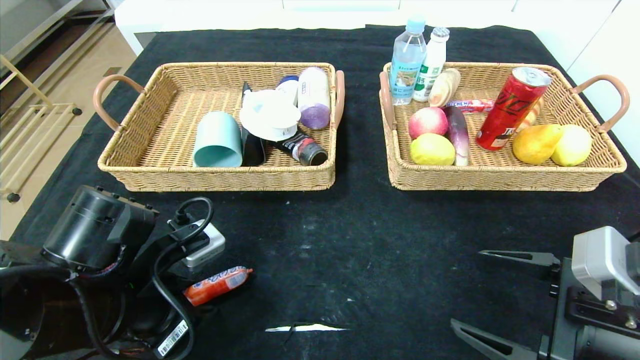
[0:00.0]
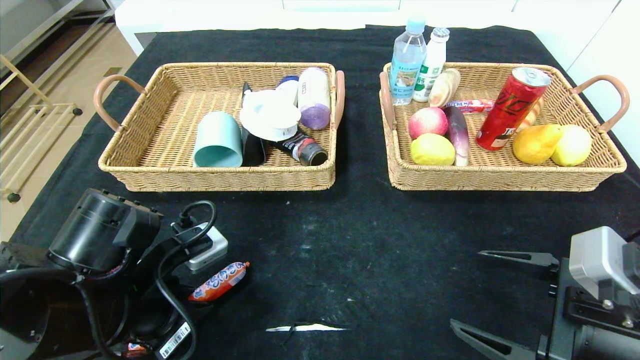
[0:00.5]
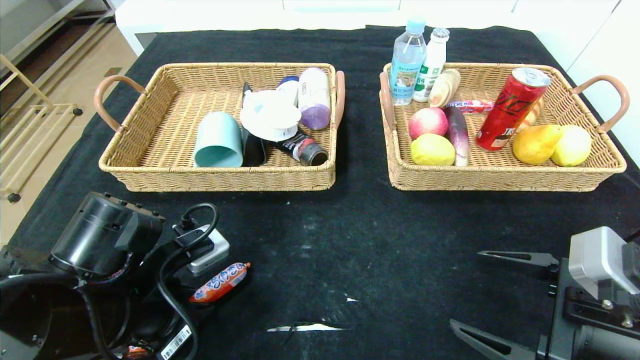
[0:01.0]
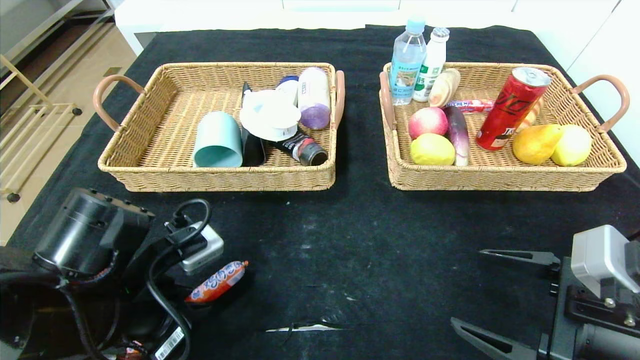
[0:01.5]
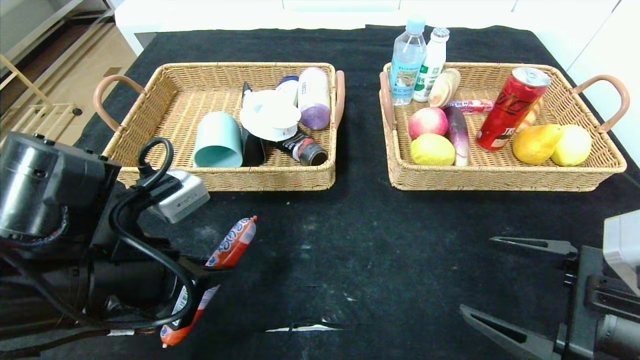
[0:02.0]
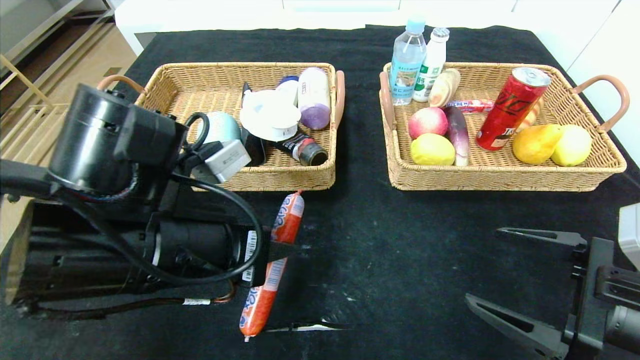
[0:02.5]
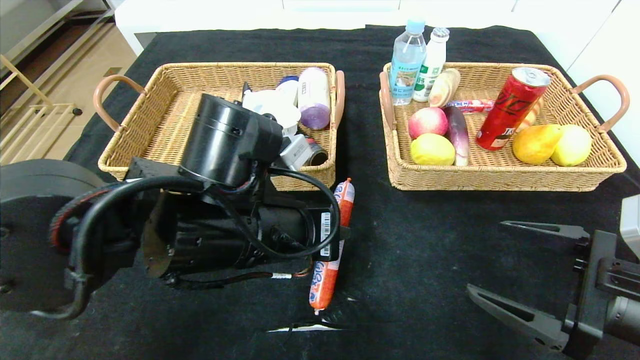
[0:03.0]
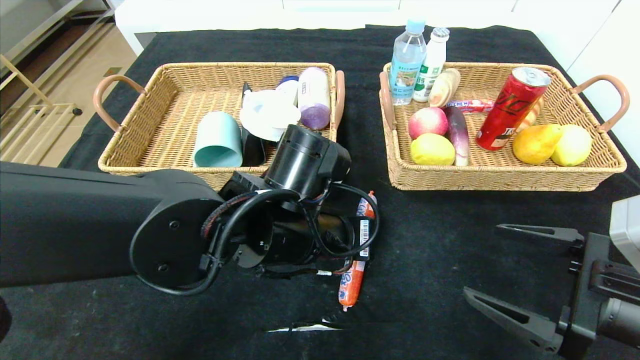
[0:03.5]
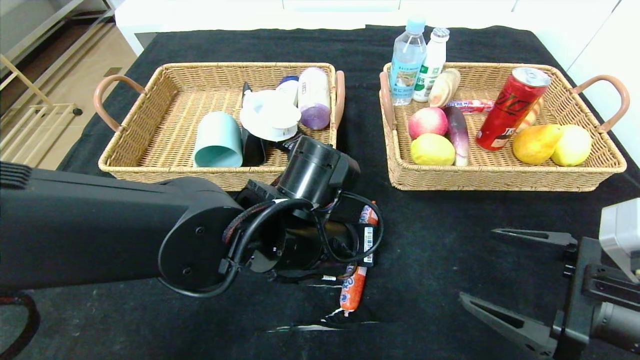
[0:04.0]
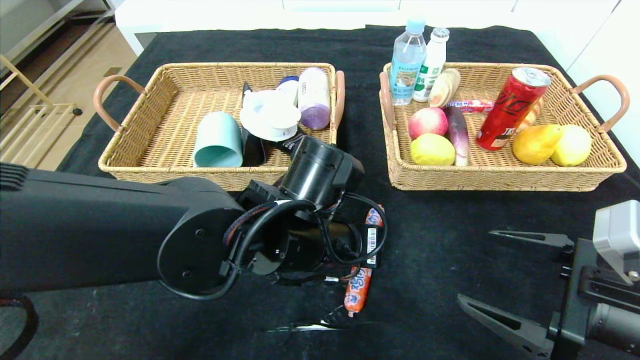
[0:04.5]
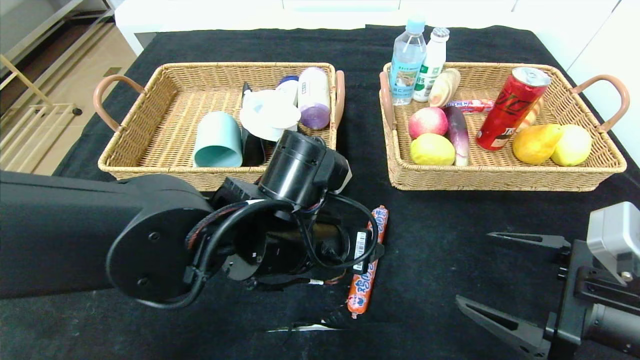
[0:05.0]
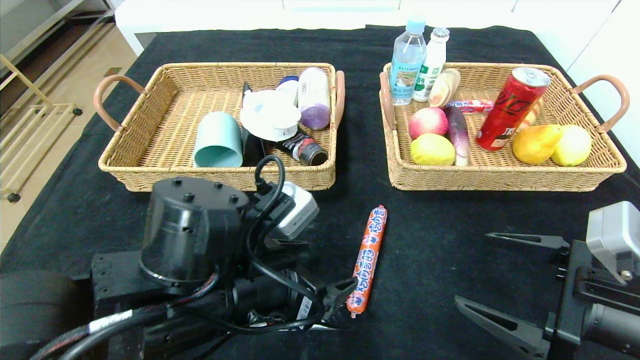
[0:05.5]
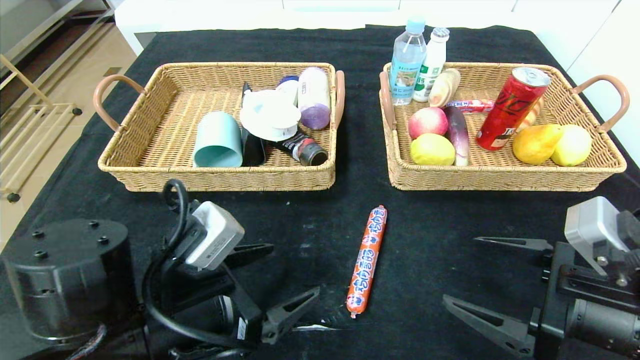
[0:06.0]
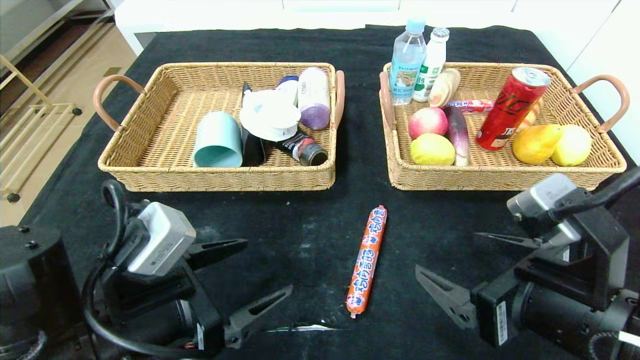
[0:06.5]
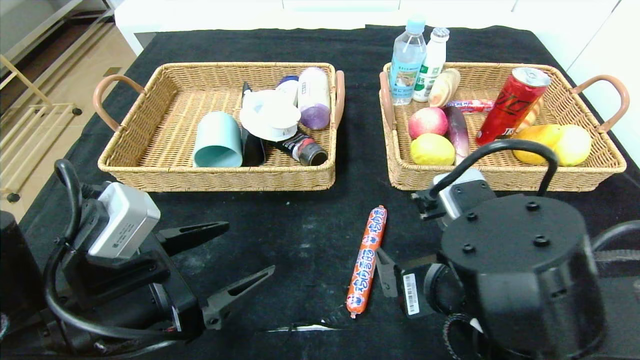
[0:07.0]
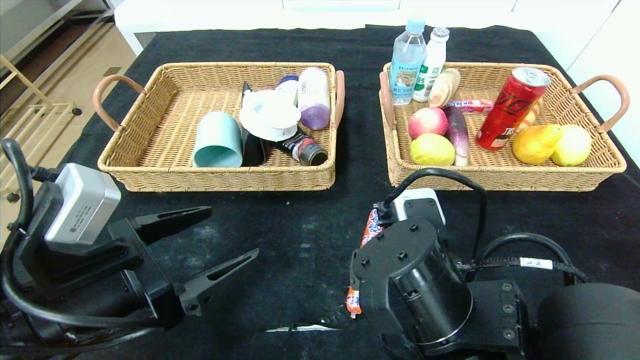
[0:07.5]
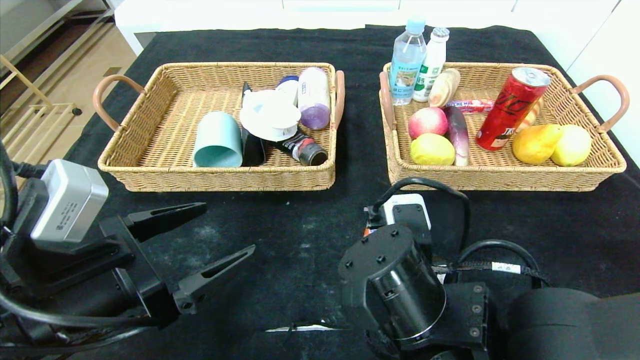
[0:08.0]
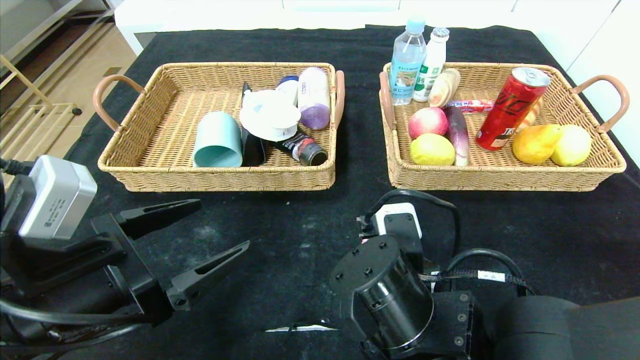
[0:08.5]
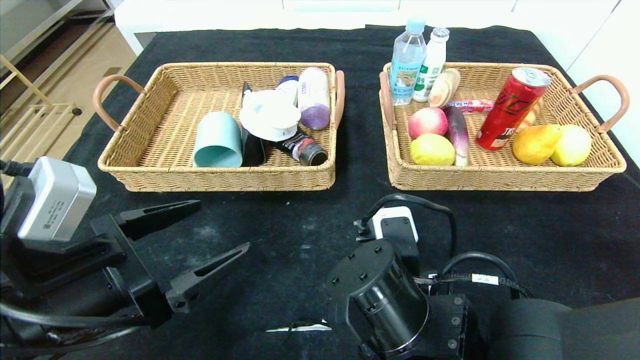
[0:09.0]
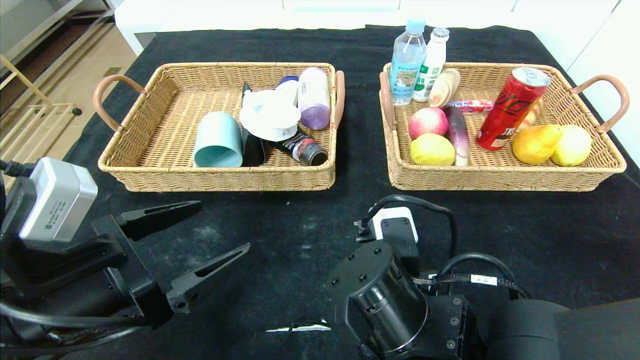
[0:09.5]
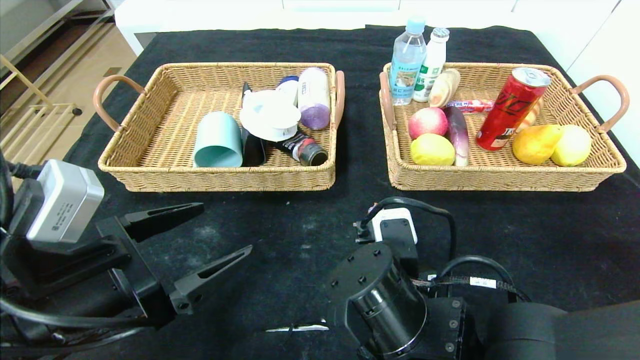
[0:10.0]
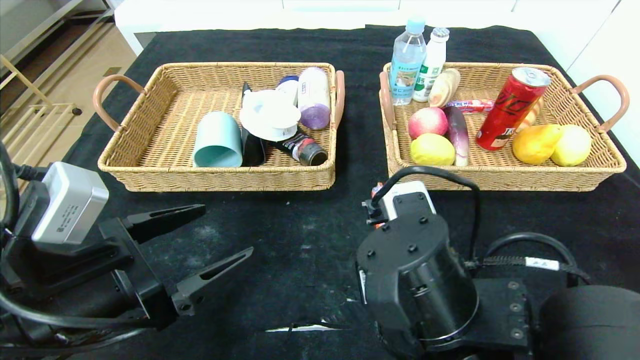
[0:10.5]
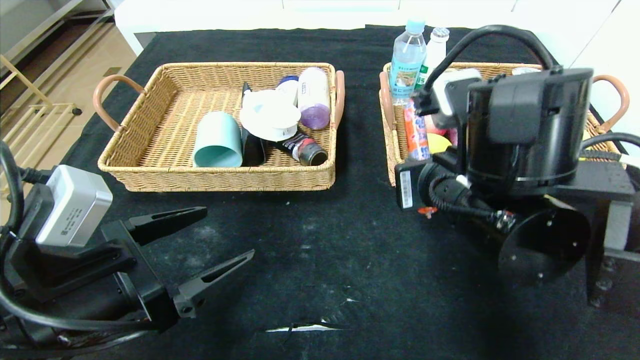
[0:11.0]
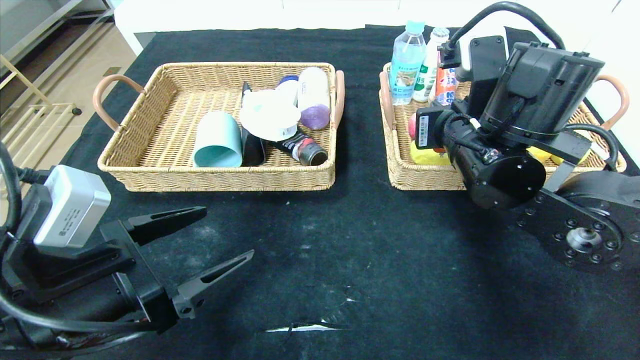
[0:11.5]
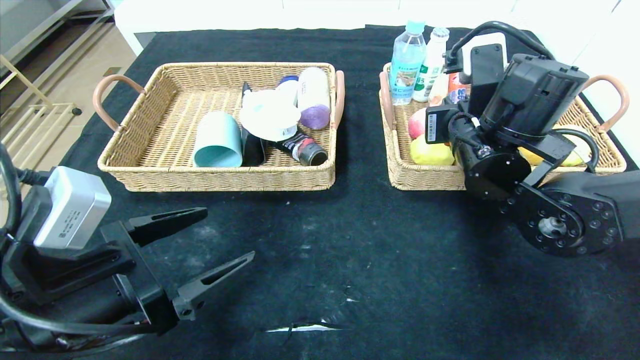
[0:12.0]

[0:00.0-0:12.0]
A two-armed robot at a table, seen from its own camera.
Step, 0:00.0 to 0:05.5: Place the sausage in the center of the table.
0:00.0 to 0:02.0: The left gripper changes place by approximately 5 cm.
0:02.0 to 0:04.0: The left gripper heads to the right and forward, covering approximately 20 cm.
0:04.0 to 0:06.0: The left gripper heads to the left and backward, covering approximately 15 cm, and opens.
0:06.0 to 0:08.0: The right gripper moves to the left, some 20 cm. Meanwhile the left gripper is displaced to the left by about 5 cm.
0:08.0 to 0:10.0: The right gripper closes its fingers.
0:10.0 to 0:12.0: The right gripper travels forward, upward and to the right by roughly 20 cm.

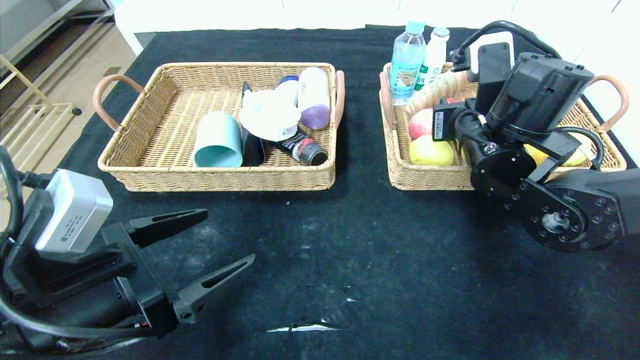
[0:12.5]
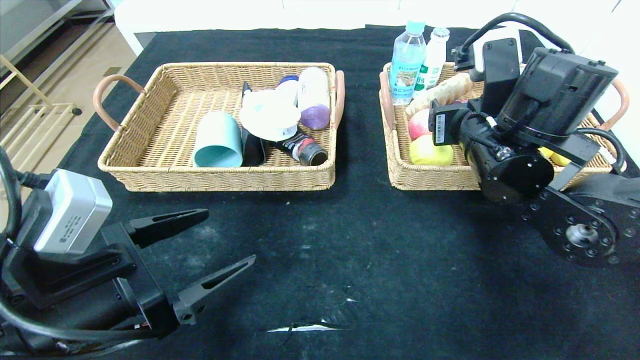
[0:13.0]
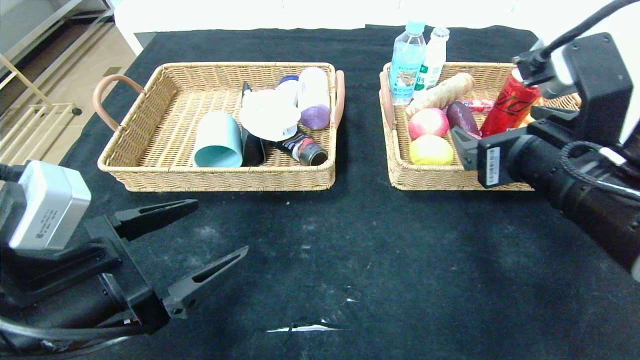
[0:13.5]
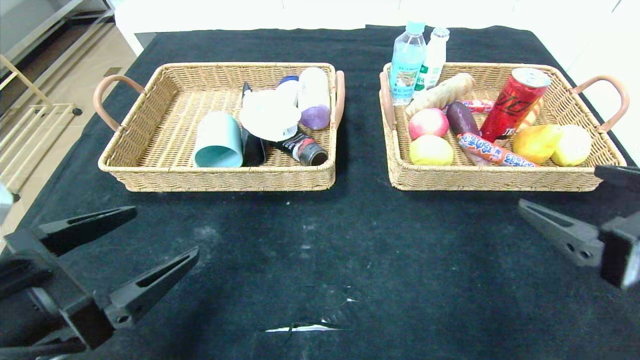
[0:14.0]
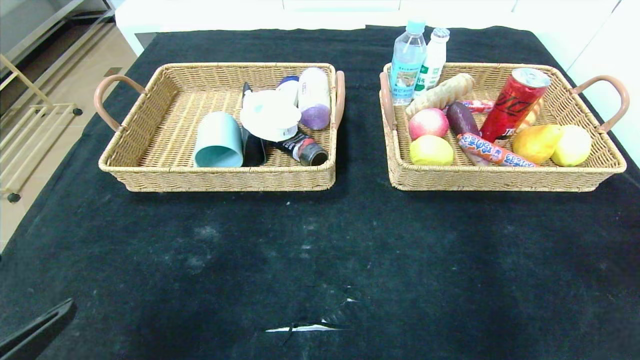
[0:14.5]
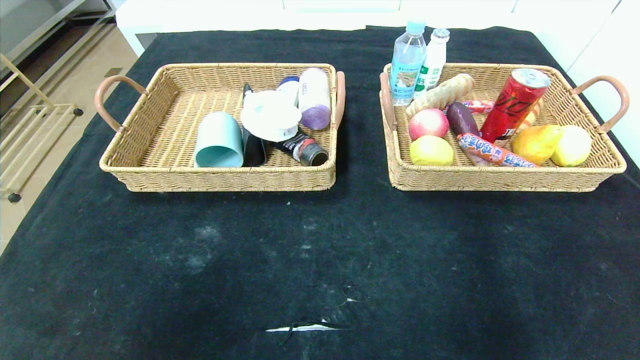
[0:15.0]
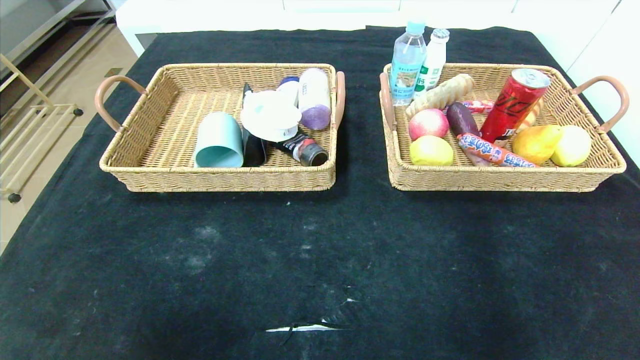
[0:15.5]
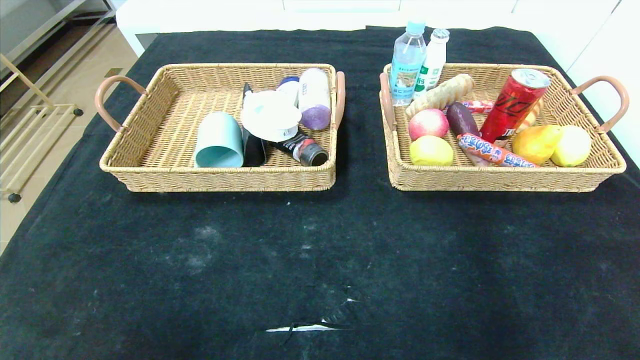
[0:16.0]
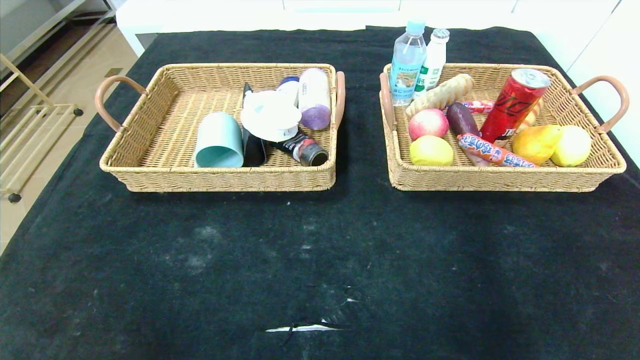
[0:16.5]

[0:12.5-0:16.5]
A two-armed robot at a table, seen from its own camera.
0:12.5 to 0:14.5: The left gripper is displaced backward and to the left by roughly 15 cm, while the right gripper goes about 35 cm backward and to the right, and opens up.
0:14.5 to 0:16.5: The left gripper is displaced downward by roughly 15 cm.

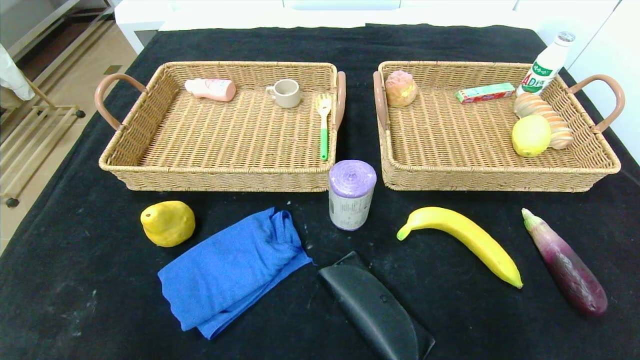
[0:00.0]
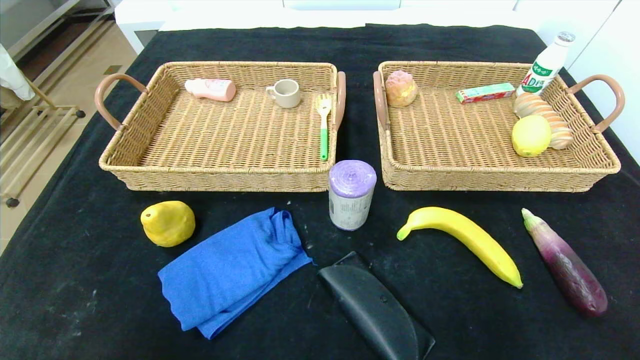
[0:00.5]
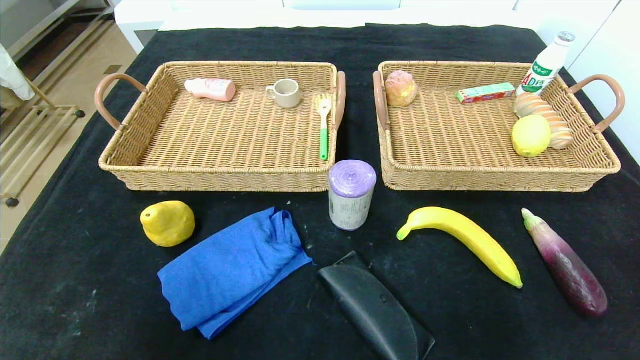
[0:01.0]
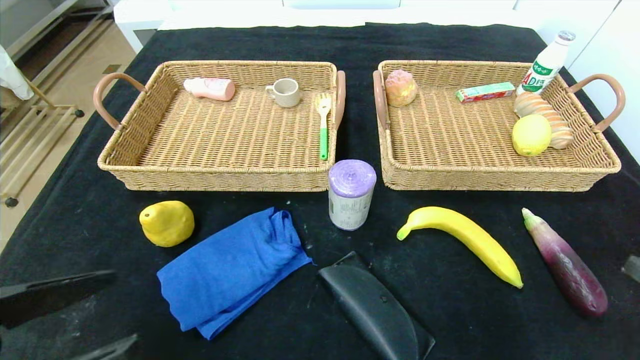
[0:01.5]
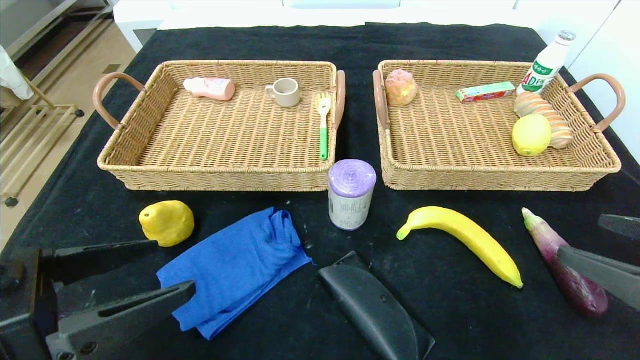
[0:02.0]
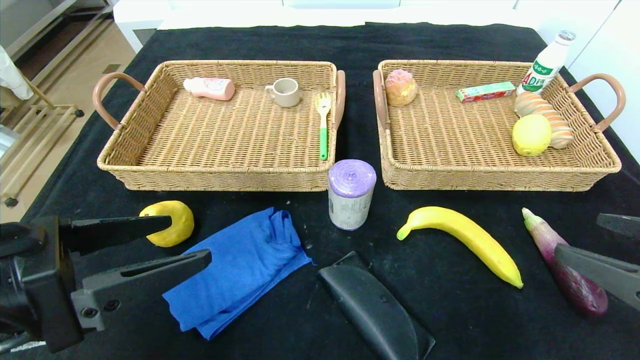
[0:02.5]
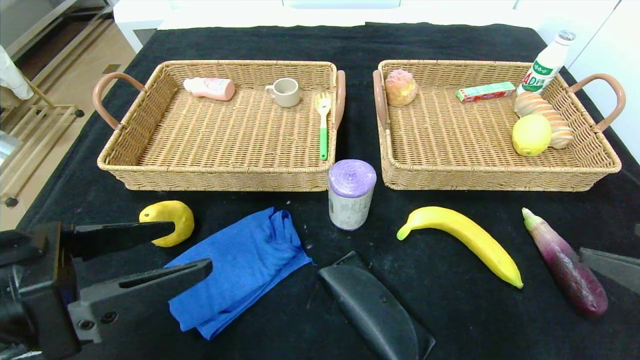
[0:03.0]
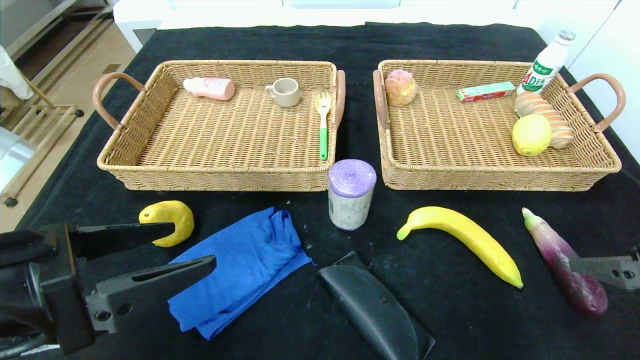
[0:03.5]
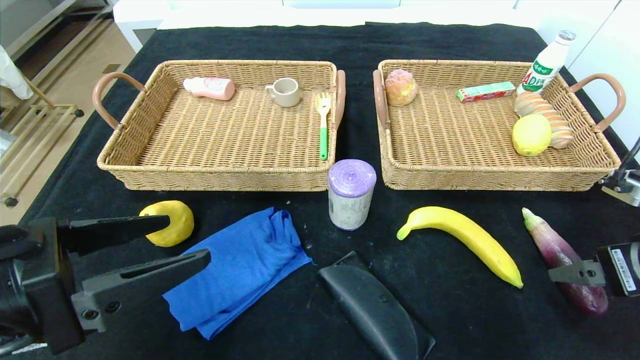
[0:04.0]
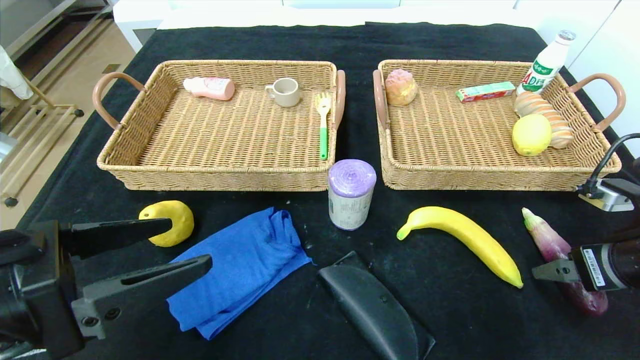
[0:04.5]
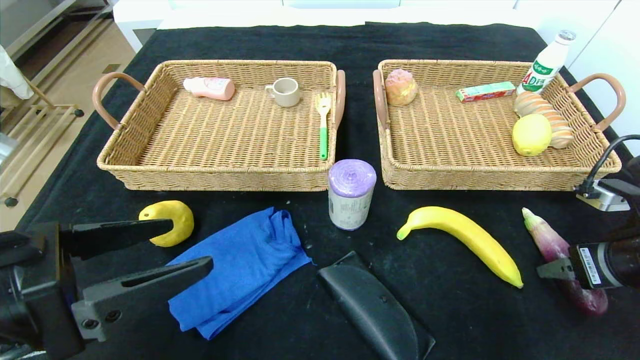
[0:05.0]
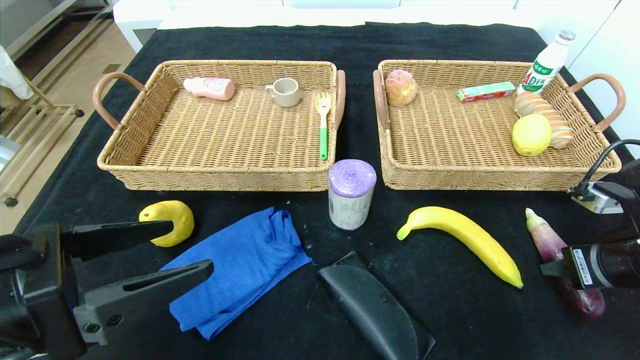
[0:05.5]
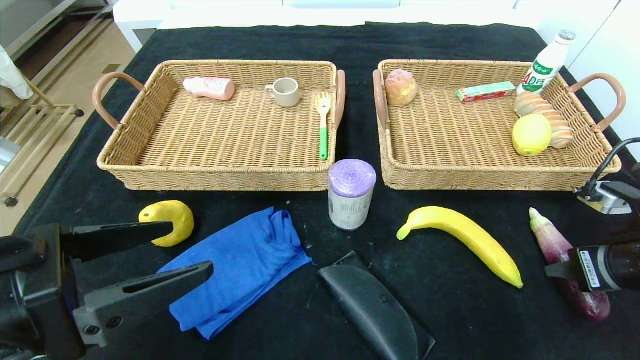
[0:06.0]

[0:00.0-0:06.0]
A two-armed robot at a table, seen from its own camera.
0:00.0 to 0:02.0: Both grippers travel together upward and forward, roughly 20 cm.
0:02.0 to 0:04.0: The right gripper is displaced forward by about 10 cm.
0:04.0 to 0:06.0: The right gripper closes its fingers.
